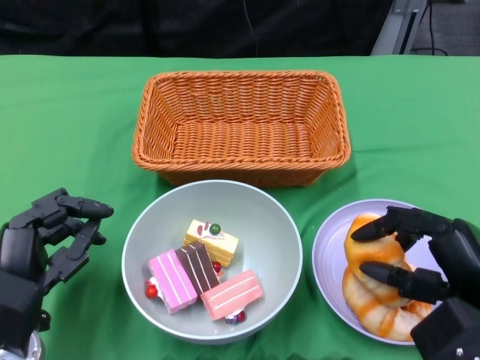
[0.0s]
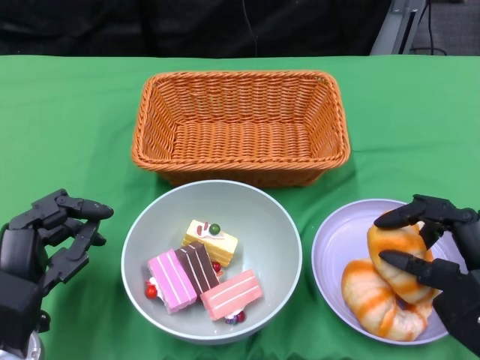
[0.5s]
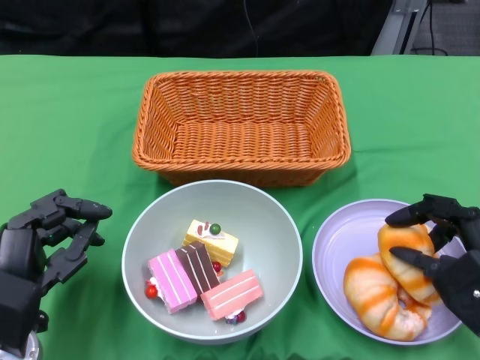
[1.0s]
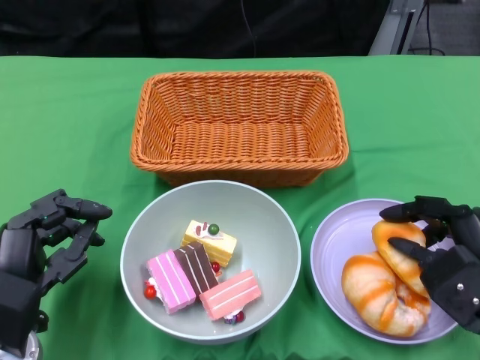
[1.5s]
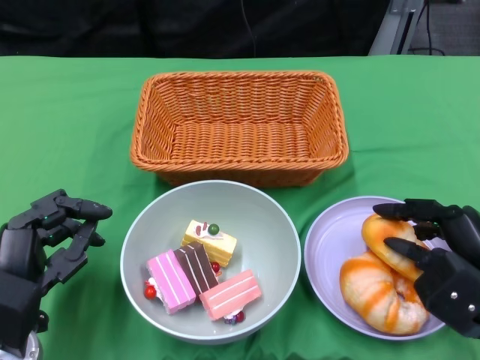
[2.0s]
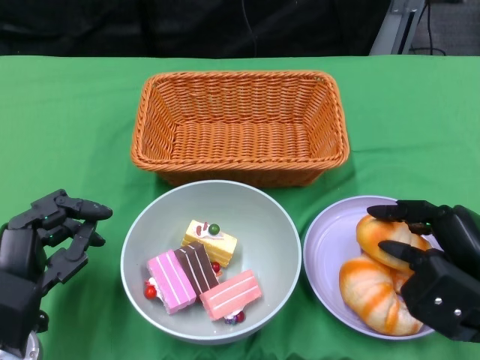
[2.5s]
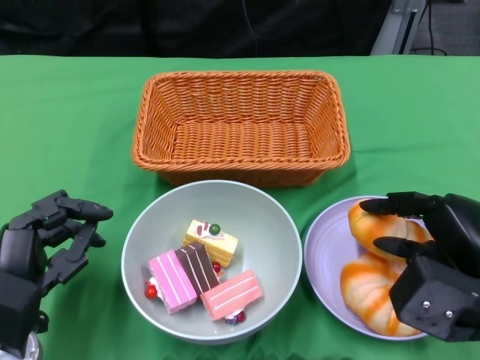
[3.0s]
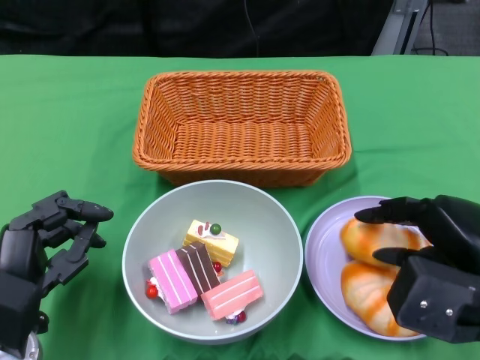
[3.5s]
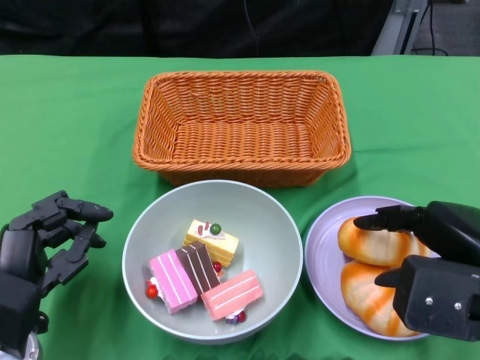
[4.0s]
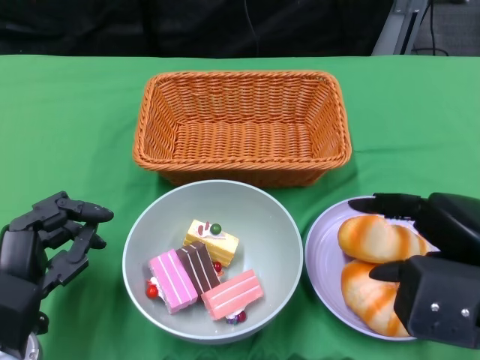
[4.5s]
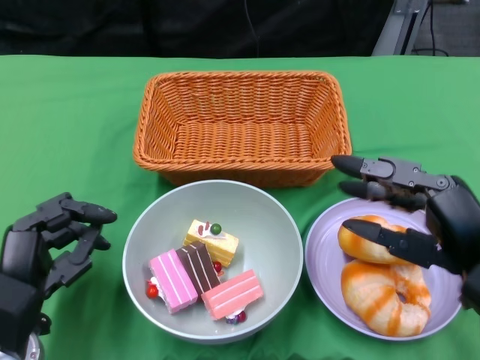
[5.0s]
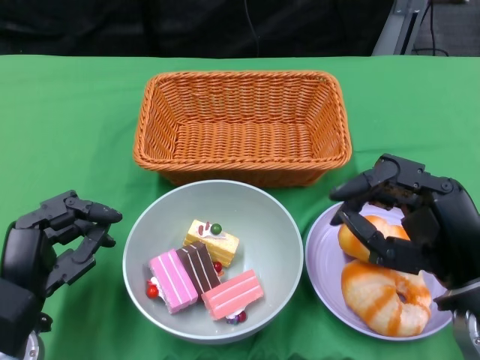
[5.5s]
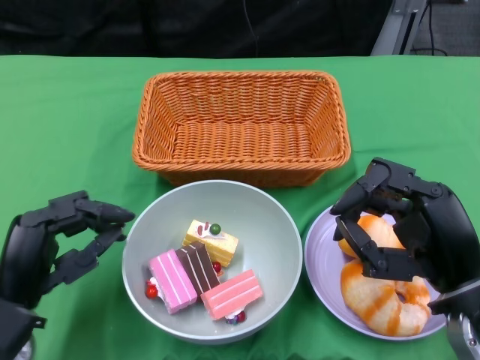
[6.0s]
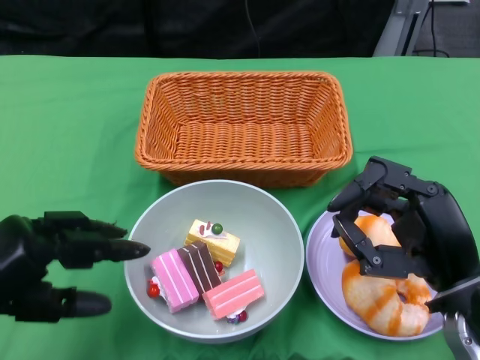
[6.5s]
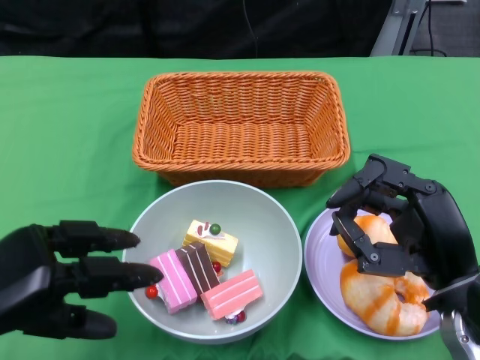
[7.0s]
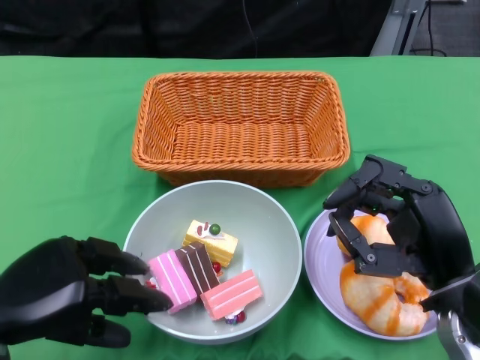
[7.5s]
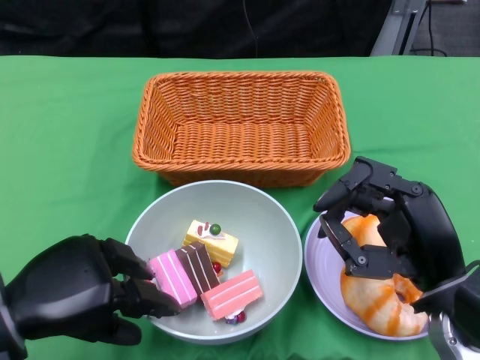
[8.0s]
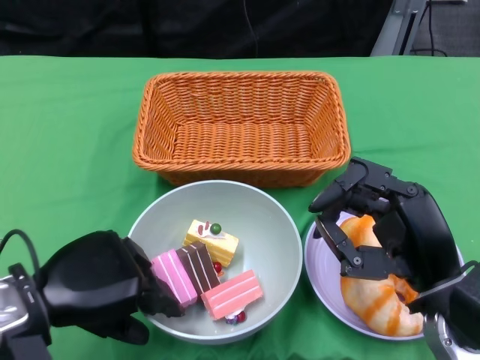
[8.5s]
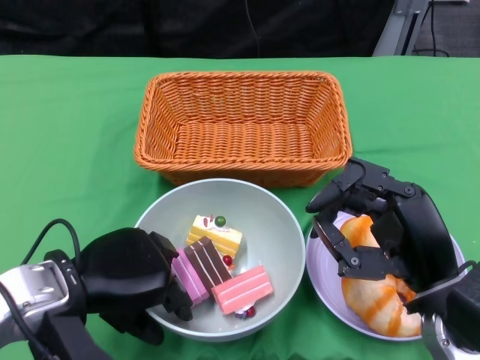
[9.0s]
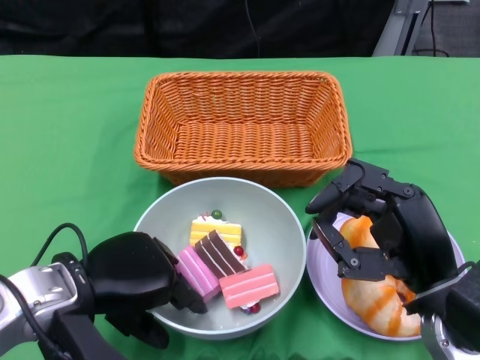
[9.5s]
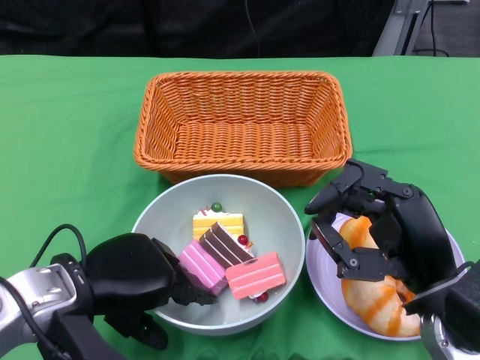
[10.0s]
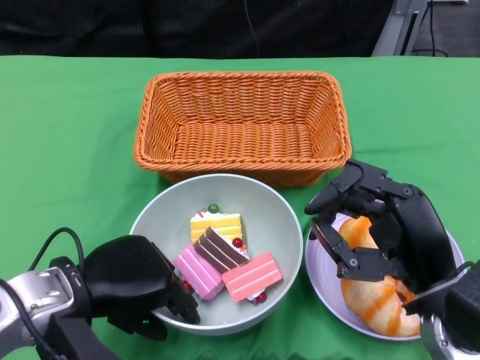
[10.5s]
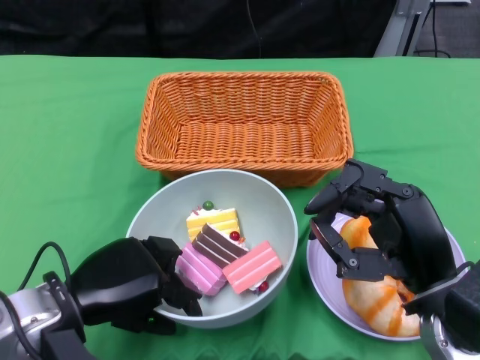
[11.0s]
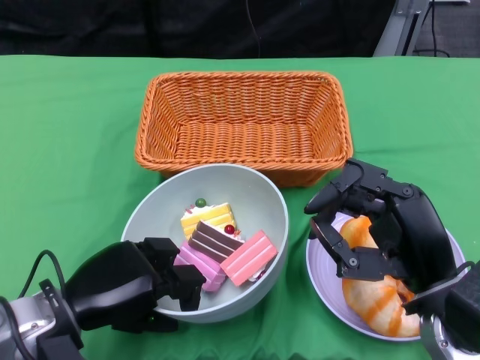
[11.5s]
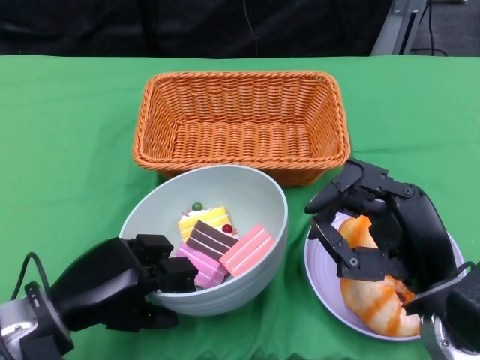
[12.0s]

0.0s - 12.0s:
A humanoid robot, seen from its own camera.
Step, 0.0s - 4.0s: Pick up the bread with the right gripper and place it on the plate.
Step, 4.5s - 11.5s: Grasp the bowl with the left gripper.
0.0s - 2.0s: The hands stay close to where they were, moving slightly.
2.0s - 4.0s: The right hand goes approximately 10 cm upward.
4.0s - 6.0s: The right hand shifts by about 5 cm.
6.0s - 8.0s: The left hand travels upward by roughly 5 cm.
8.0s - 10.0s: The left hand travels to the right by roughly 5 cm.

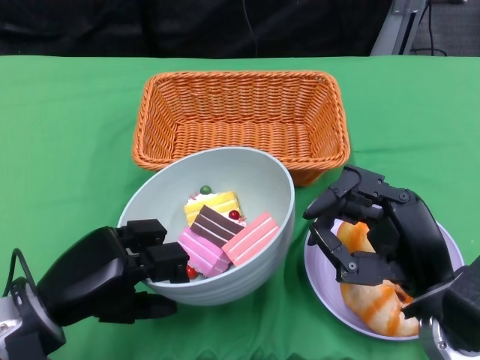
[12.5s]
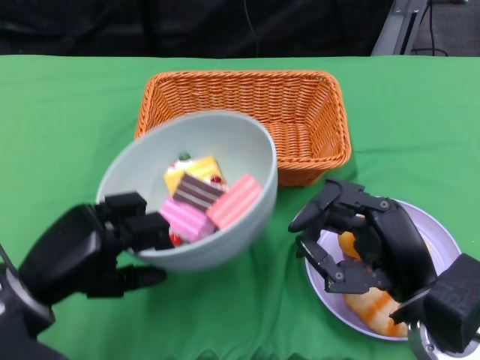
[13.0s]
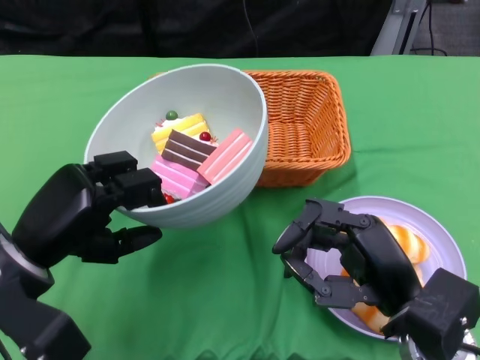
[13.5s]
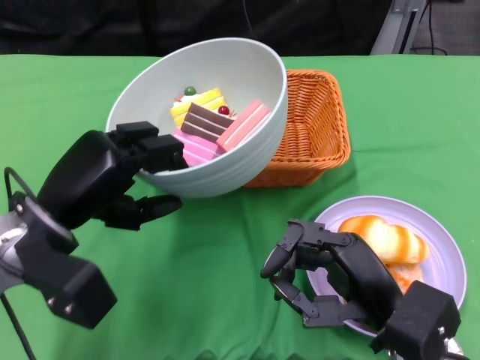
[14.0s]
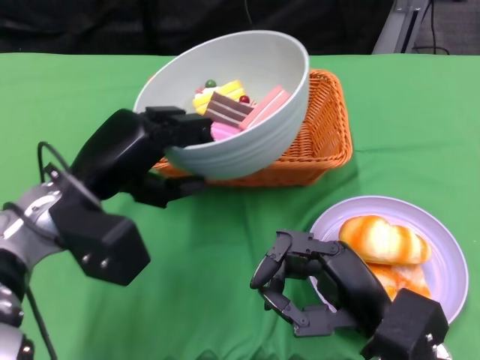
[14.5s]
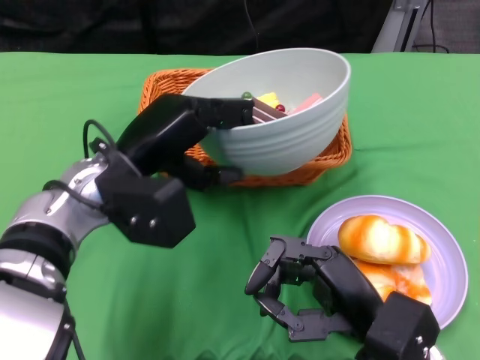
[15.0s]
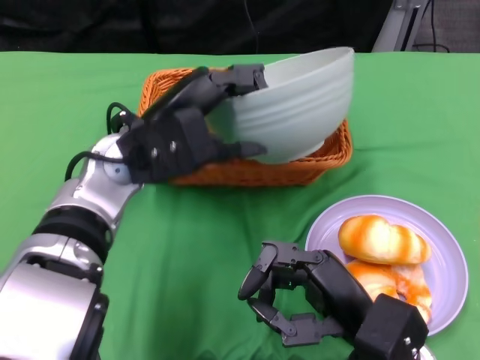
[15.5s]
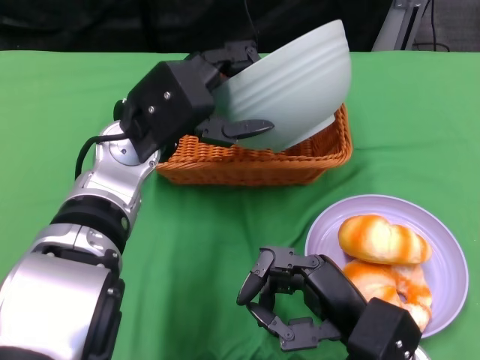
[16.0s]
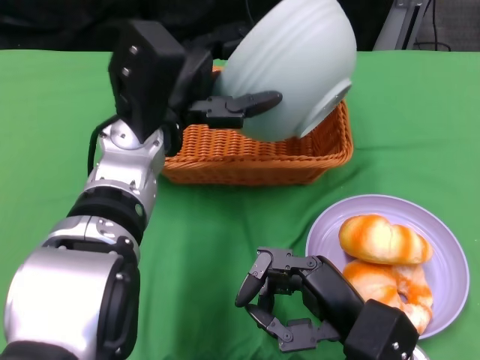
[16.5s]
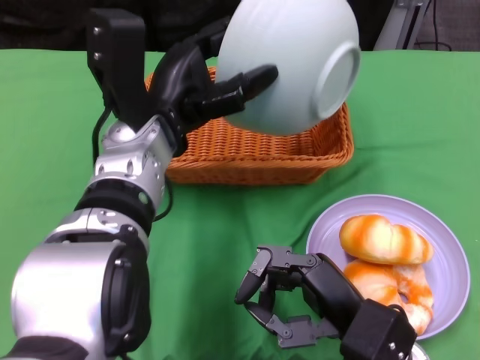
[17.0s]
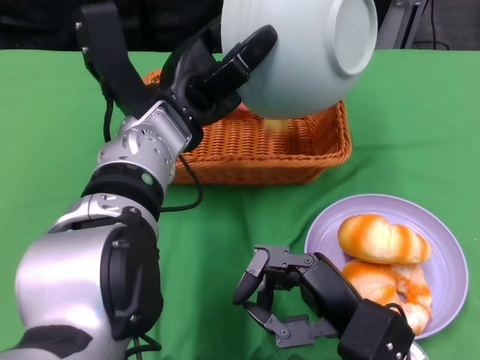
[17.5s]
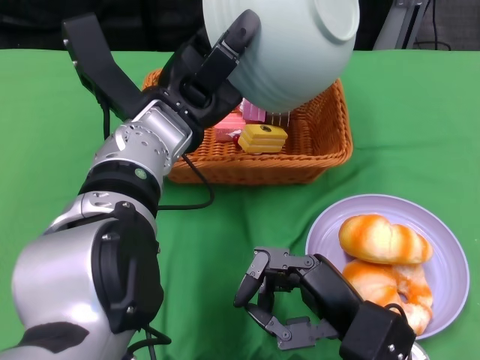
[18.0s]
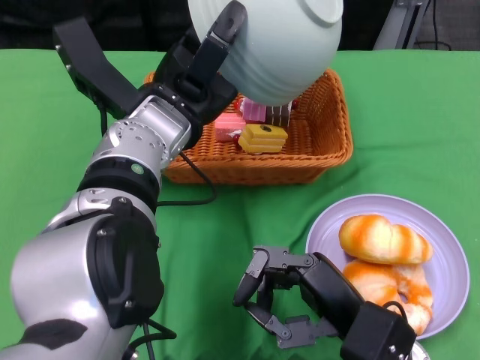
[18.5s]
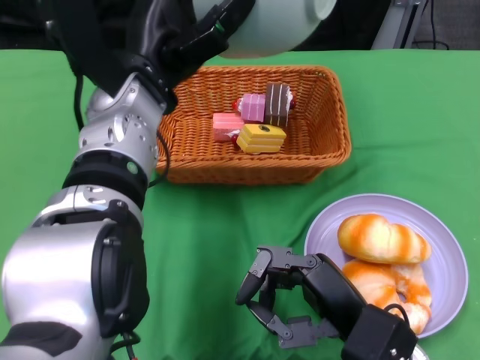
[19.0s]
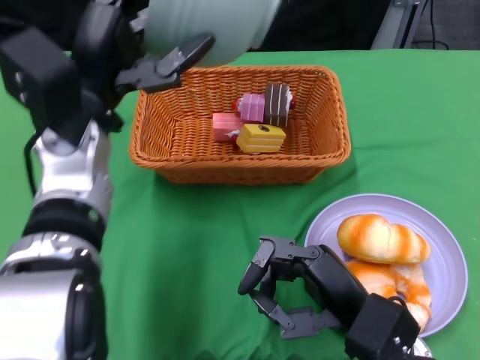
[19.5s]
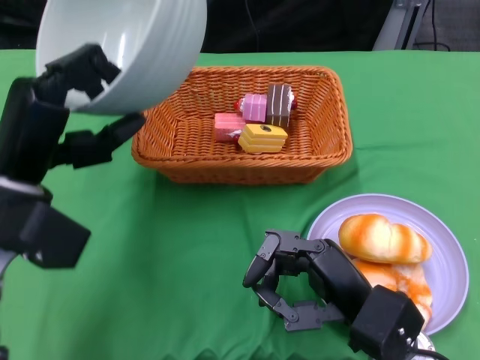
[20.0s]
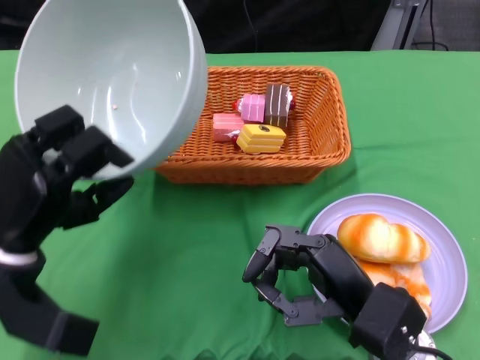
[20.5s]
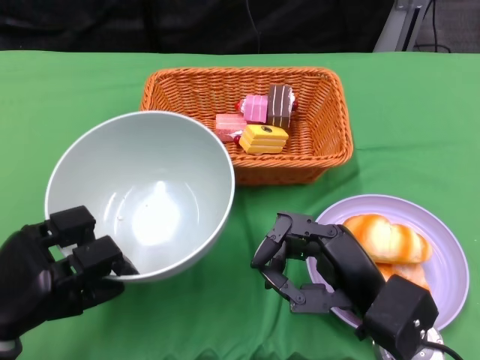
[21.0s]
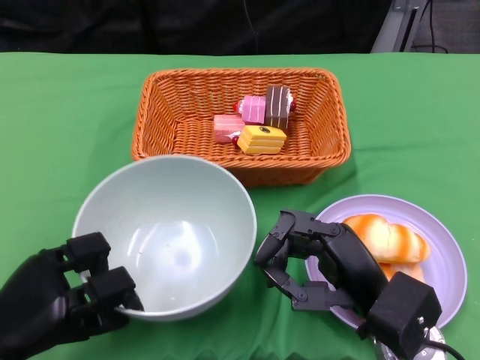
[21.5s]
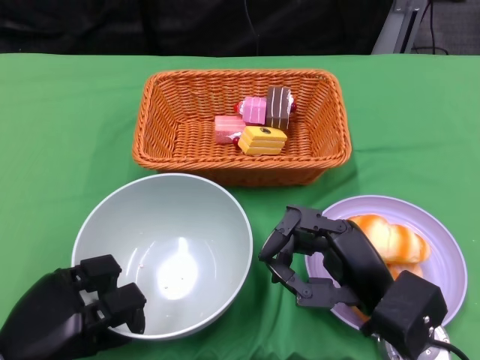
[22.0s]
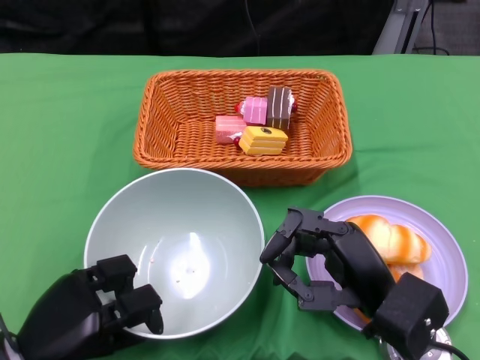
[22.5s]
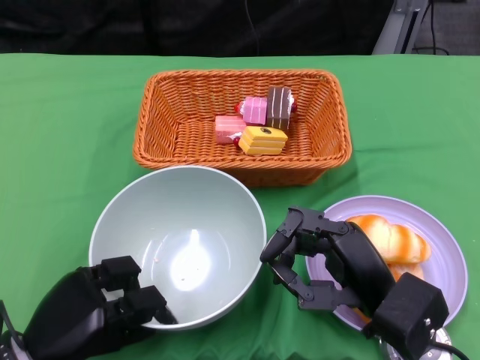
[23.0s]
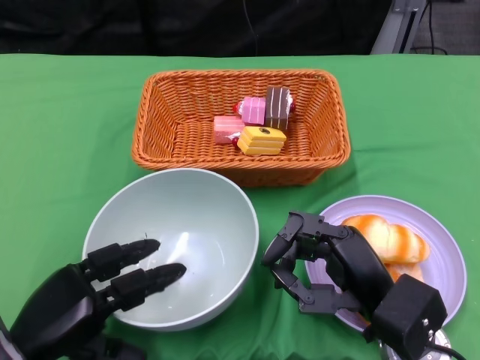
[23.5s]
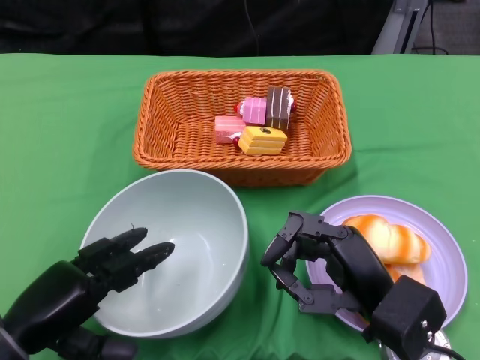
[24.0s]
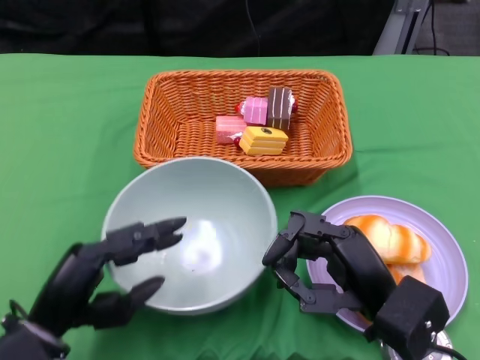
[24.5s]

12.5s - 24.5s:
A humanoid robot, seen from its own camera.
Step, 12.5s - 18.0s: Pour the cake into the basket with the left gripper.
Step, 18.5s - 23.0s: Place the bowl on the table with the left gripper.
12.5s - 14.5s: The right hand changes place by some 5 cm; the left hand shifts about 10 cm forward and upward.
14.5s - 16.5s: The left hand travels to the right by approximately 10 cm.
18.5s - 20.5s: The left hand moves to the left, backward and downward, some 20 cm.
20.5s - 22.5s: The left hand travels downward and backward by approximately 10 cm.

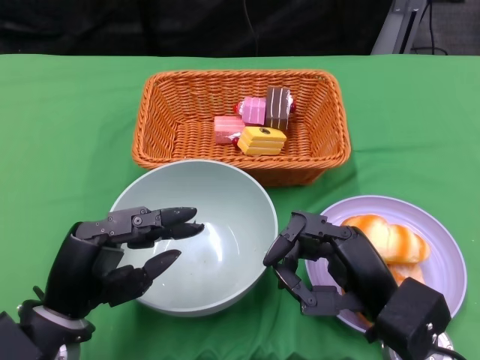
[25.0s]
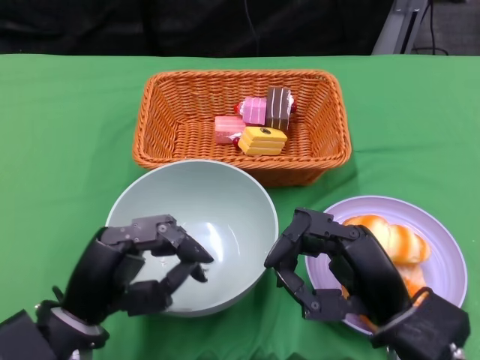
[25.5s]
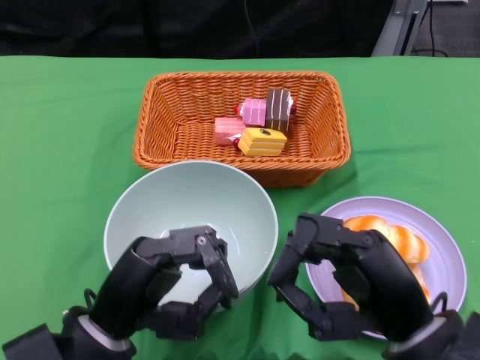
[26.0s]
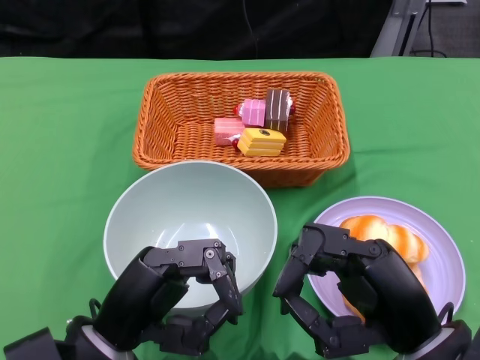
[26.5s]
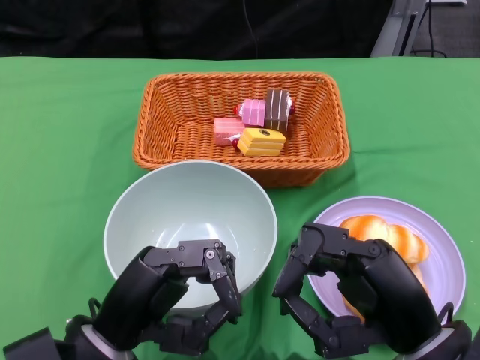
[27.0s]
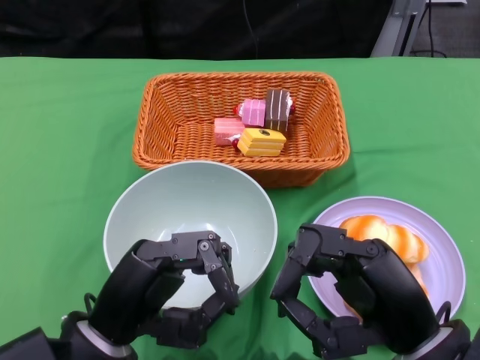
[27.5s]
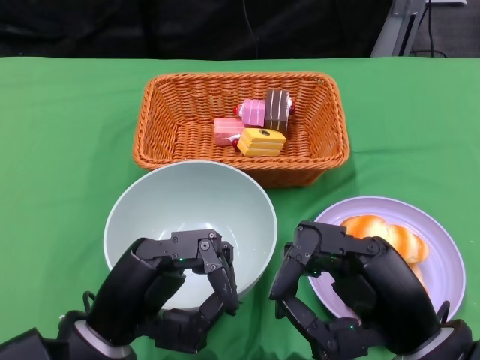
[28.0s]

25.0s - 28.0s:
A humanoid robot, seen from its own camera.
25.0s - 26.5s: The right hand goes approximately 5 cm upward, while the left hand ends up about 5 cm from where it was.
26.5s - 28.0s: There are only small adjustments of the hands.
